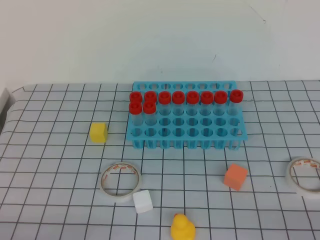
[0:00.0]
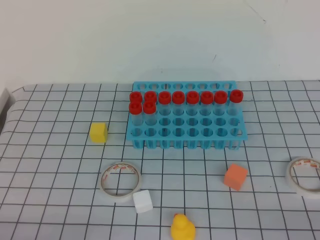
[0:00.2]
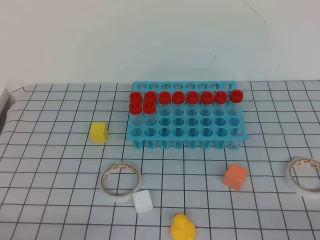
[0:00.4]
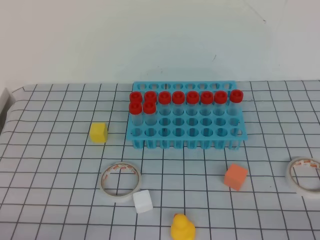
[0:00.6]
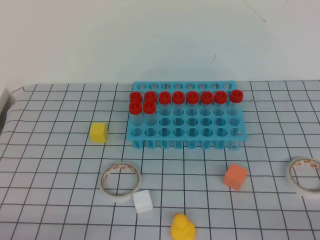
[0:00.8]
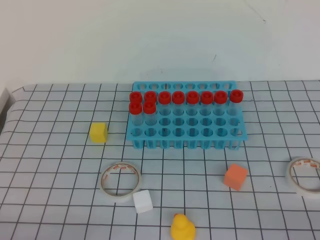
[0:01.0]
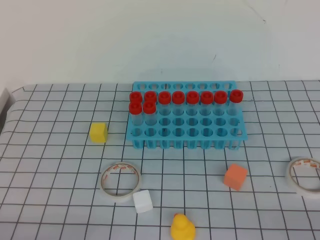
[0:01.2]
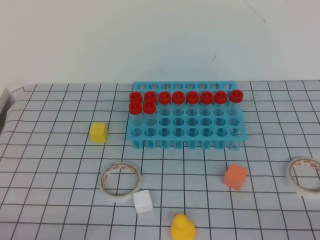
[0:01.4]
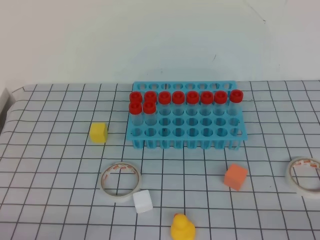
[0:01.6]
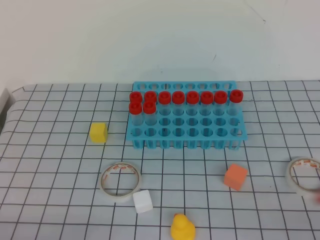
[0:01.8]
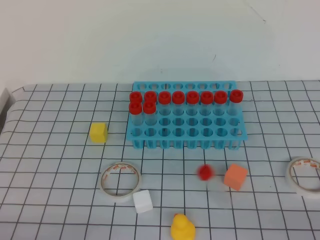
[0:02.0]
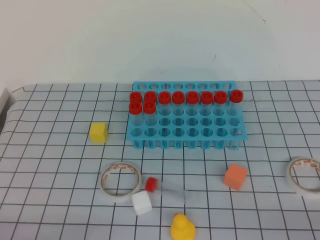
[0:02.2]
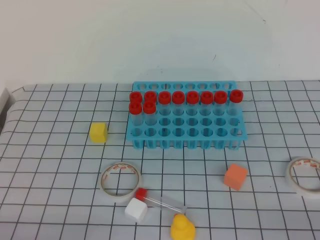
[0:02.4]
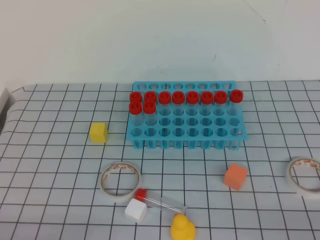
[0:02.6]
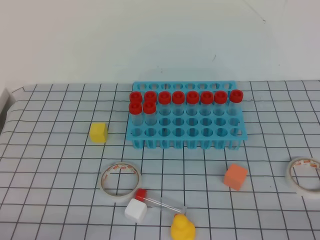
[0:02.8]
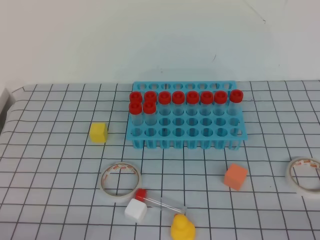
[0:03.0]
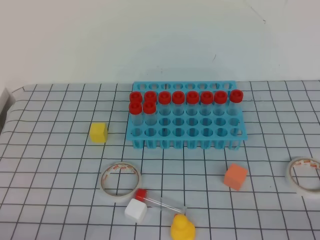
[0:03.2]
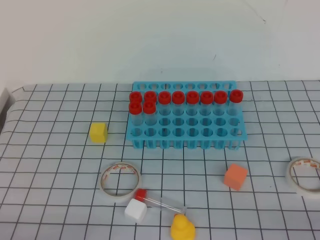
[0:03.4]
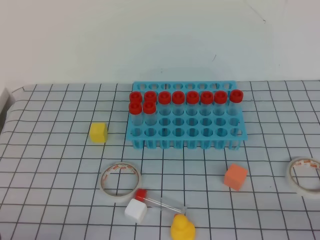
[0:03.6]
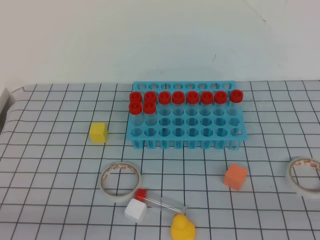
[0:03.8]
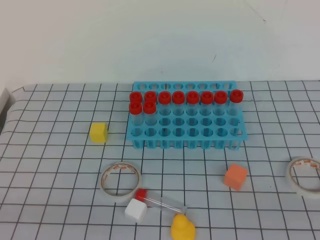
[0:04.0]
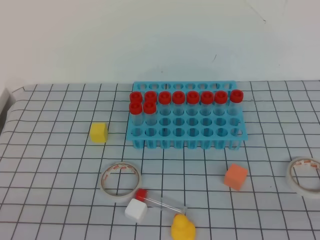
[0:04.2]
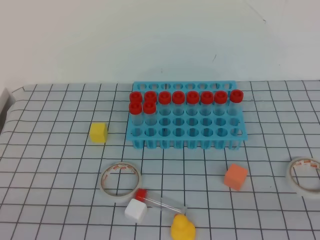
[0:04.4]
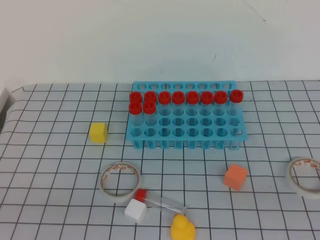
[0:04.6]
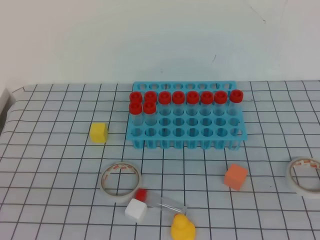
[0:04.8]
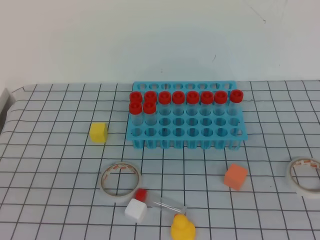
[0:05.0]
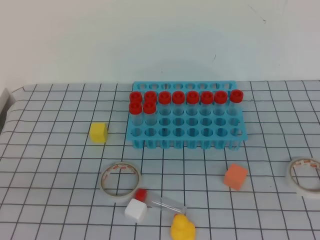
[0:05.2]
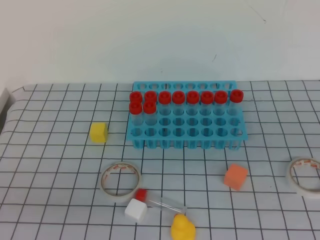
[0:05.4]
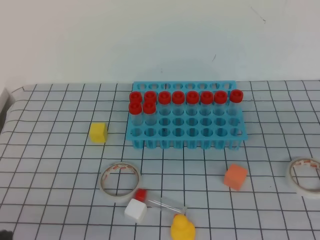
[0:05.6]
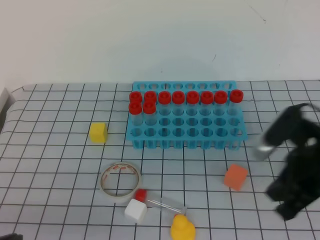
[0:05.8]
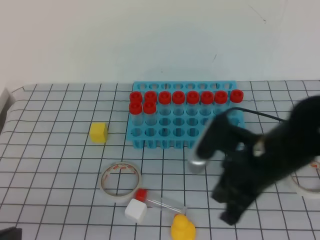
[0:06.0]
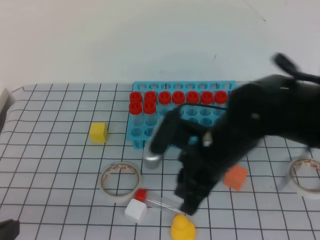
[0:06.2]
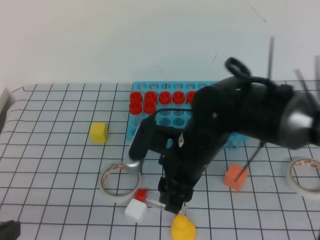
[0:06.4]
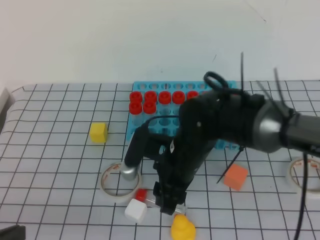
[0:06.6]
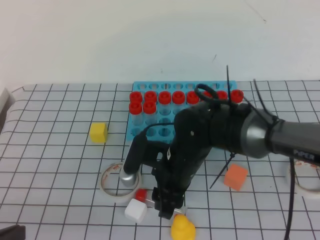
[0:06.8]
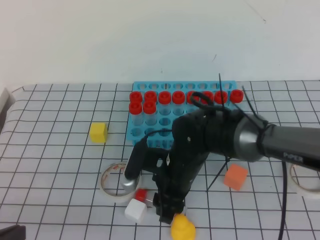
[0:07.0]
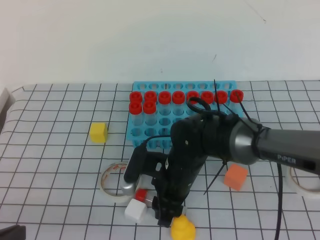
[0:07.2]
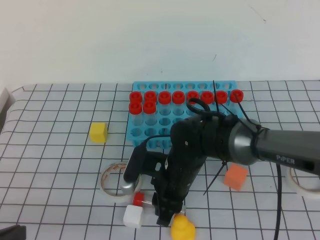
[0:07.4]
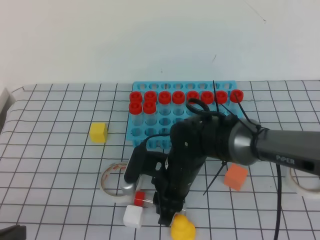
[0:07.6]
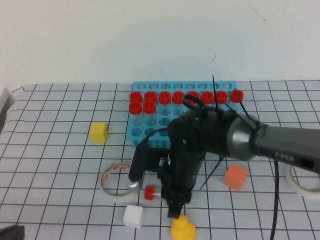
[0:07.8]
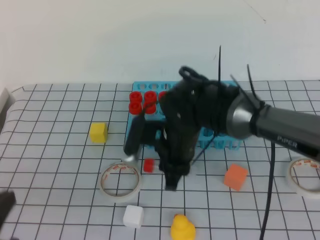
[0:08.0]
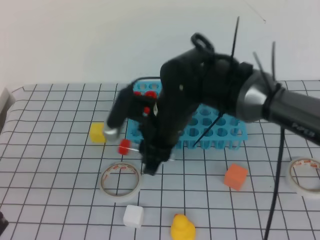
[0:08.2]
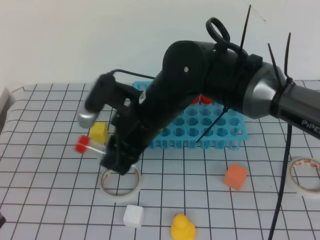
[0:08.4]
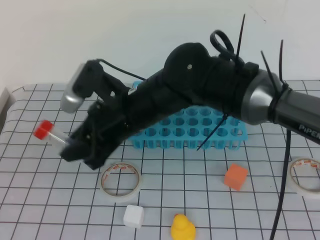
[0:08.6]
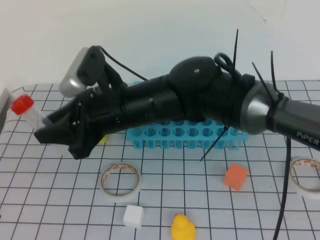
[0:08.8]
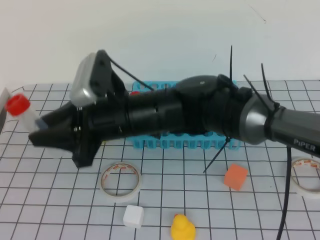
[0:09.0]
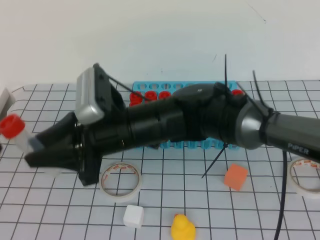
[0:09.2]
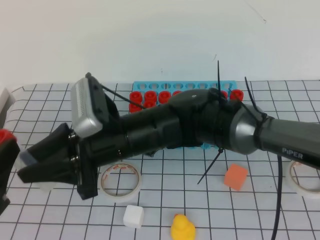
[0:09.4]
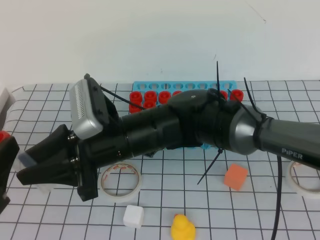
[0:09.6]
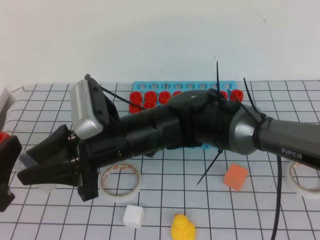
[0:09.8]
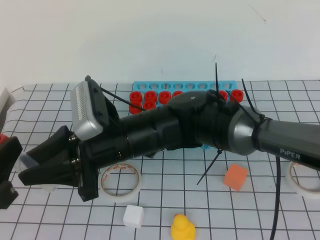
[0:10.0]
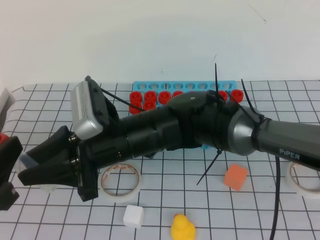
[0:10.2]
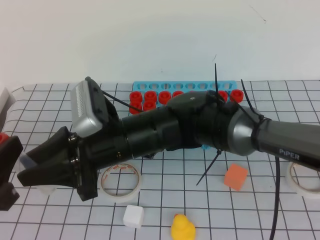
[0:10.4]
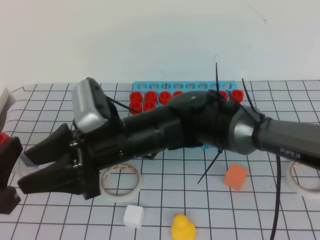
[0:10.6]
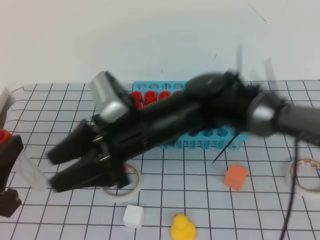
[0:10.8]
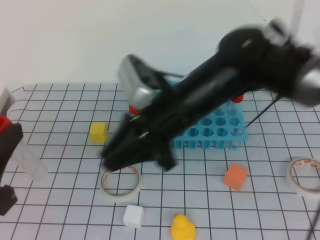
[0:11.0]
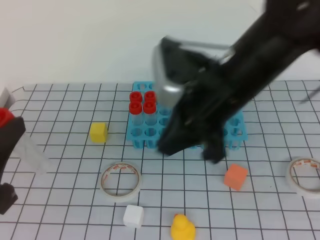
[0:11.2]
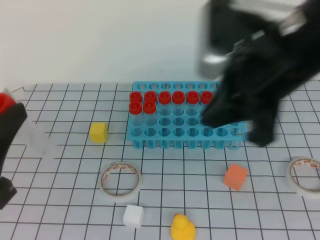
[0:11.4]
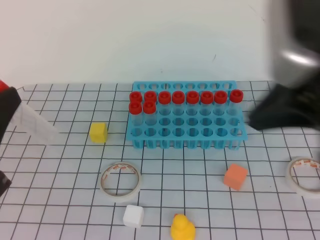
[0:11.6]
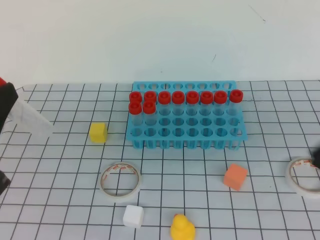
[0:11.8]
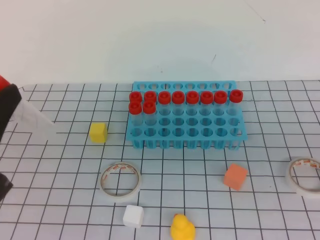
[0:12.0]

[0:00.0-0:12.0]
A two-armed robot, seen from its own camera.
0:00.0 to 0:03.0: Both grippers stay about where they are.
0:04.4 to 0:06.0: The right gripper goes about 30 cm forward and to the left; the left gripper ends up roughly 5 cm from where it was.
0:06.0 to 0:07.6: The right gripper is displaced to the left, downward and forward by roughly 20 cm, and opens up.
0:07.6 to 0:09.0: The right gripper travels upward and to the left by roughly 15 cm. The left gripper shifts some 5 cm upward, and opens its fingers.
0:10.4 to 0:12.0: The left gripper is displaced upward by approximately 5 cm; the right gripper goes approximately 35 cm to the right, backward and upward, and closes its fingers.

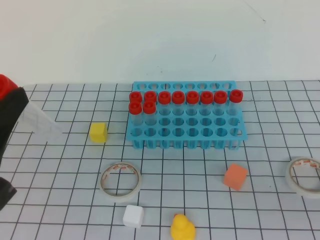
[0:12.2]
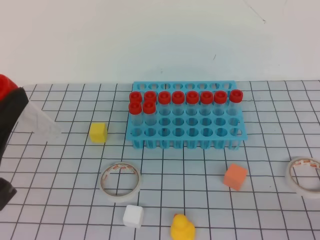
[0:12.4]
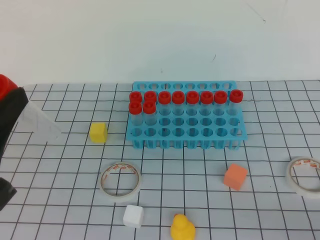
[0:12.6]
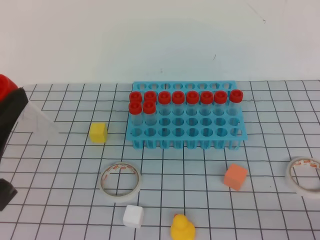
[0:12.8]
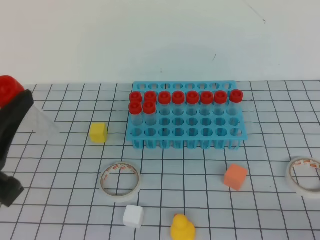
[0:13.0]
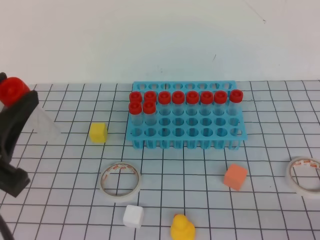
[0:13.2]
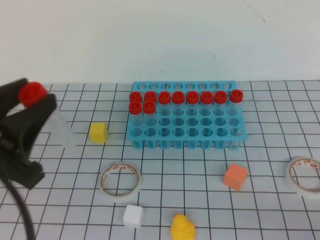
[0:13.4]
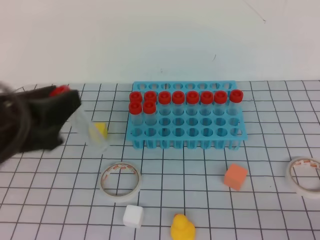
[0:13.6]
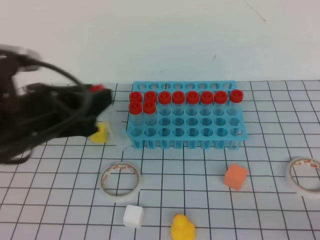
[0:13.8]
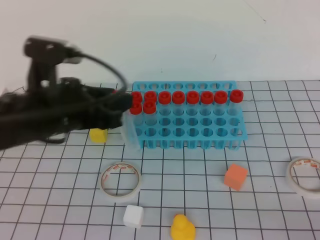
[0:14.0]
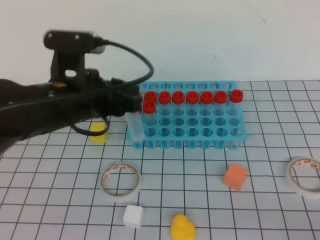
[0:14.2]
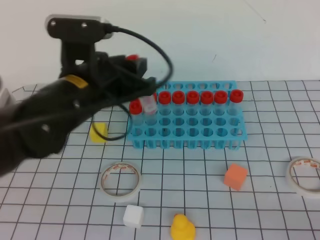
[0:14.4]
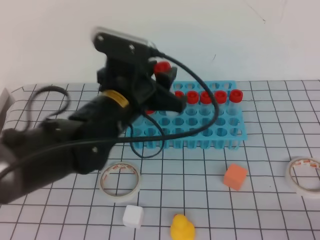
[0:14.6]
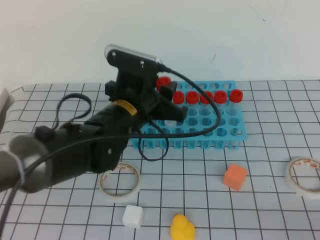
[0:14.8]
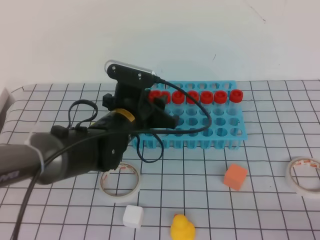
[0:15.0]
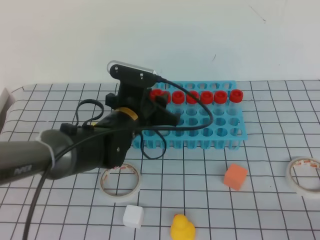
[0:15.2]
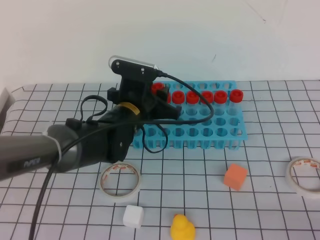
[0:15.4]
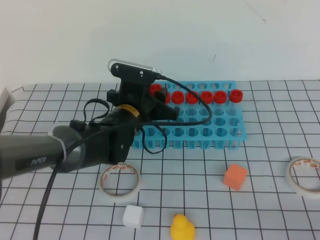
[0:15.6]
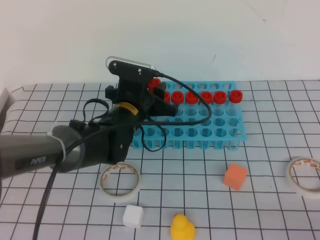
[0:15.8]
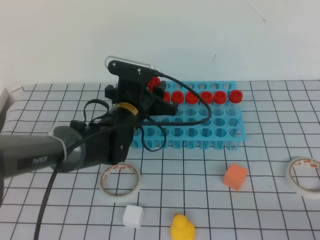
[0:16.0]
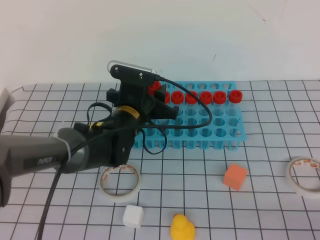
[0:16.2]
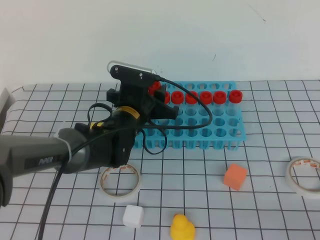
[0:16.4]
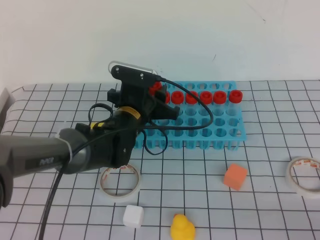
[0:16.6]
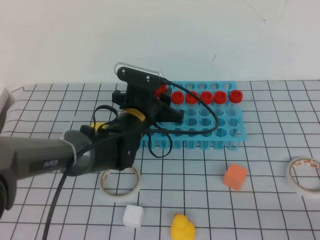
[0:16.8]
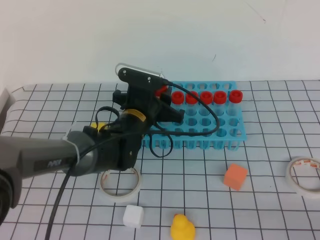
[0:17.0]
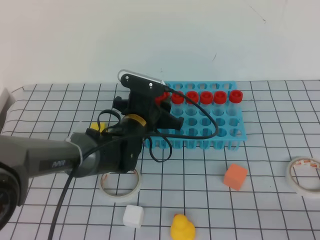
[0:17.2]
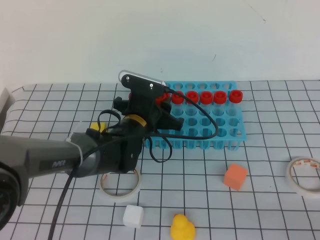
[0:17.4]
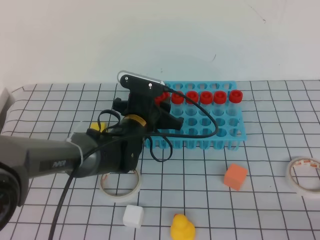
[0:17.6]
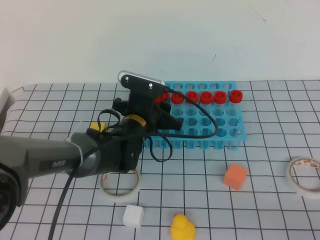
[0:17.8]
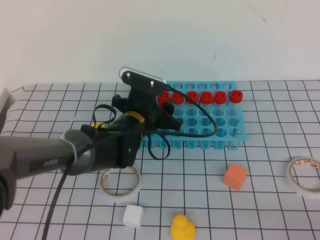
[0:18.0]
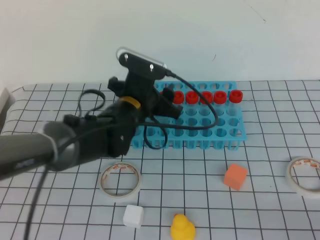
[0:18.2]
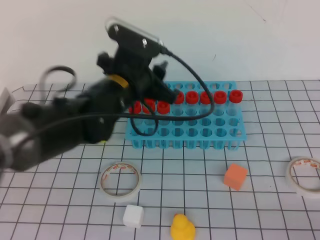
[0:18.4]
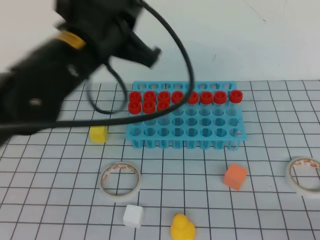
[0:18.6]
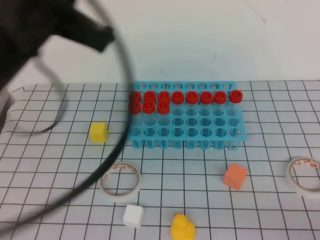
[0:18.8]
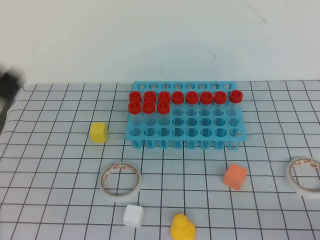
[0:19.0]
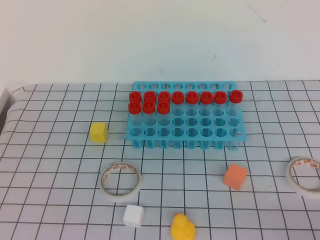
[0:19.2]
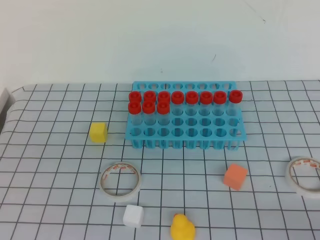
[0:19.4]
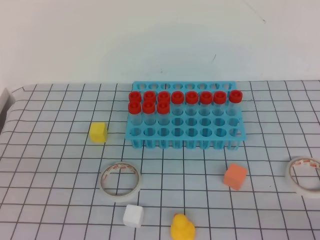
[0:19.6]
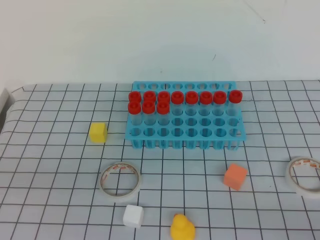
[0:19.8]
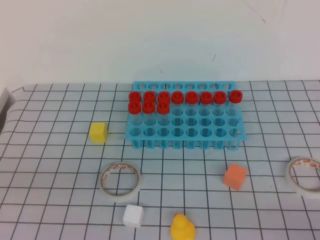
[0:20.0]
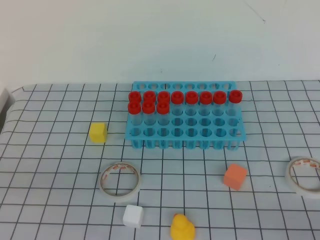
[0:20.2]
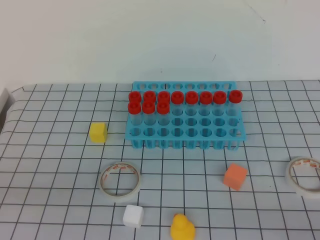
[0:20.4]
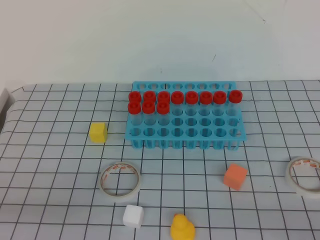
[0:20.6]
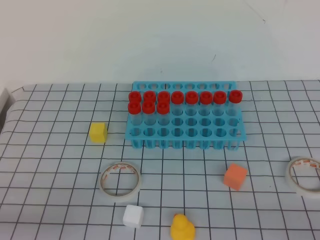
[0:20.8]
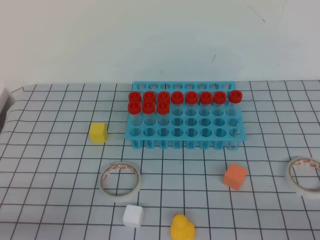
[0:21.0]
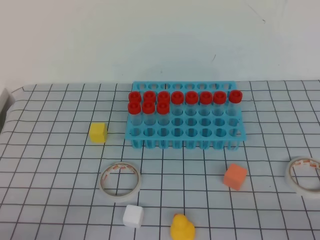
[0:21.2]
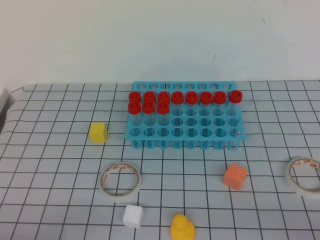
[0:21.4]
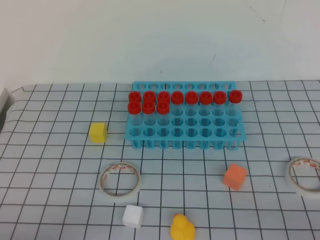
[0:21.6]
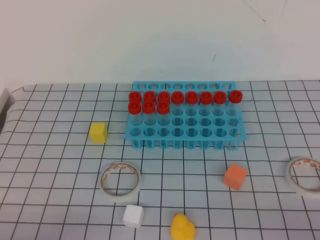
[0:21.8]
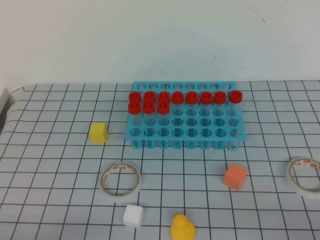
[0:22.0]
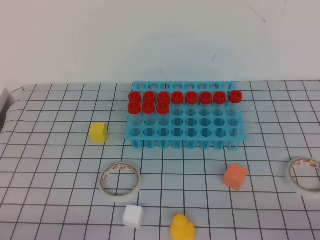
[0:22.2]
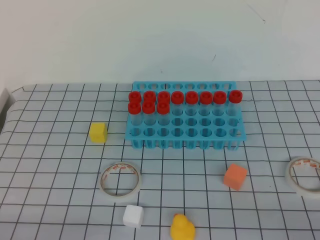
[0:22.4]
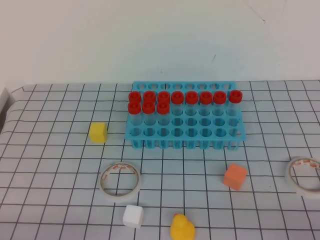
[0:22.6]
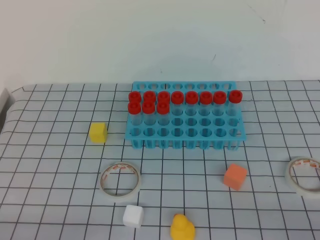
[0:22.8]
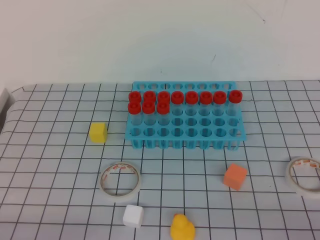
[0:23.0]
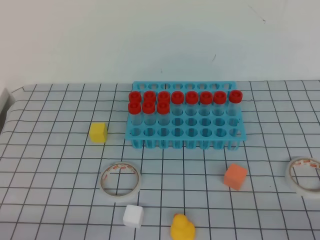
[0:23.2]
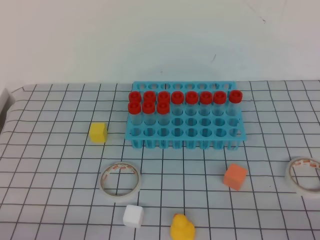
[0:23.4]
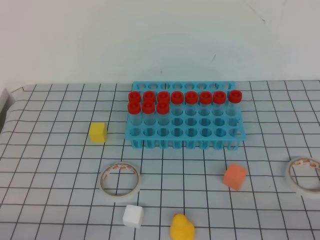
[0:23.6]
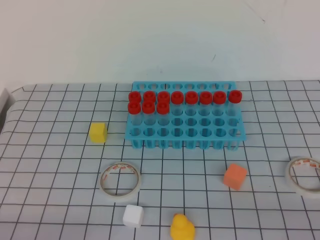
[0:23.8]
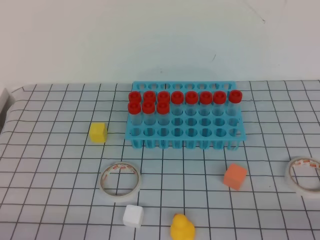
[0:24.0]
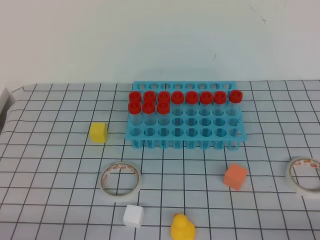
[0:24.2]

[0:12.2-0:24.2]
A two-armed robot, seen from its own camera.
0:12.2 to 0:13.8: The left gripper goes approximately 10 cm forward.
0:13.8 to 0:15.2: The left gripper heads forward, to the right and downward, covering some 20 cm.
0:15.2 to 0:18.2: The grippers stay close to where they were, moving slightly.
0:18.2 to 0:19.8: The left gripper goes some 35 cm backward and to the left, and closes.
0:19.8 to 0:21.2: The left gripper goes approximately 10 cm downward.
